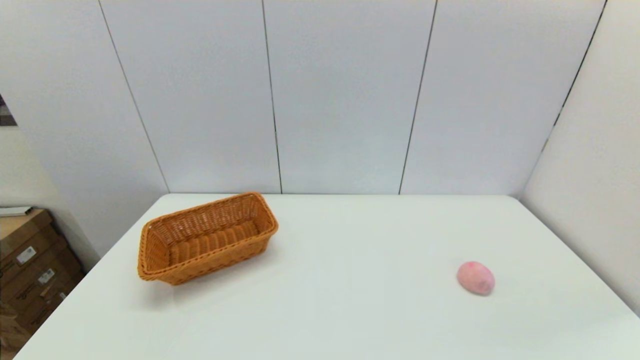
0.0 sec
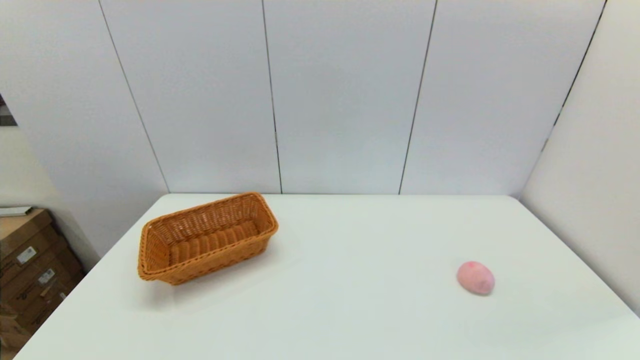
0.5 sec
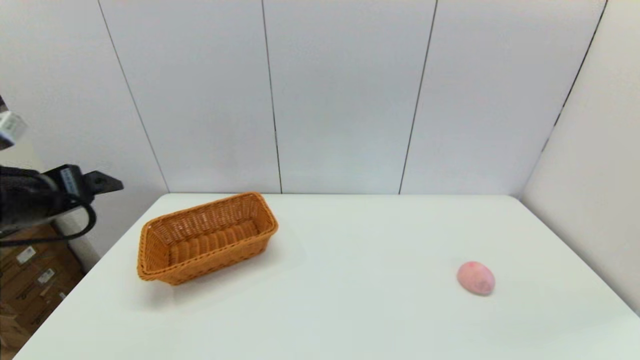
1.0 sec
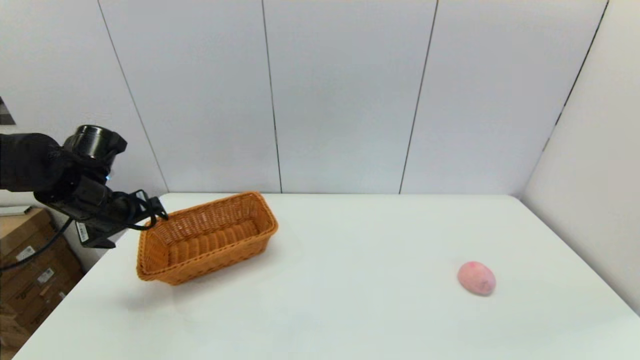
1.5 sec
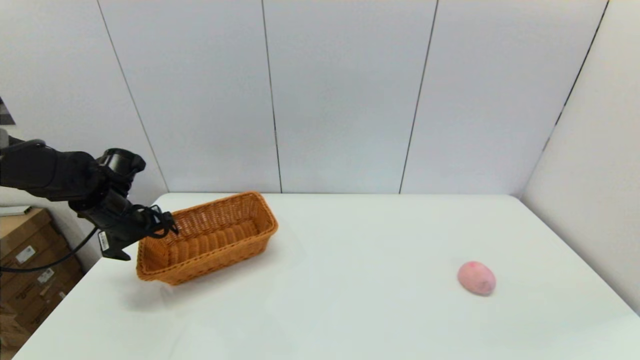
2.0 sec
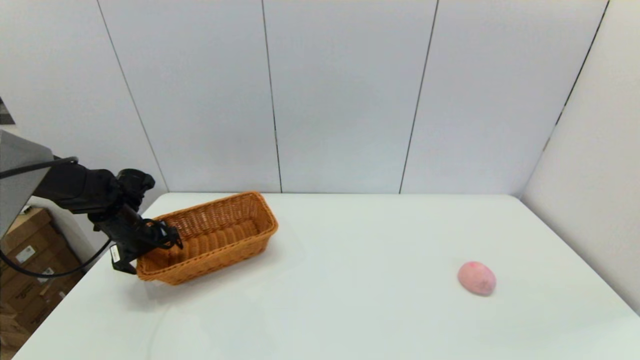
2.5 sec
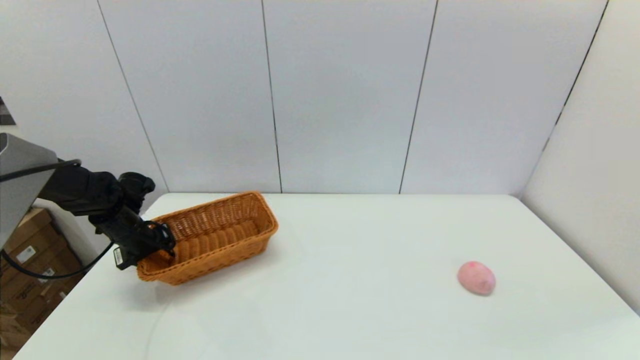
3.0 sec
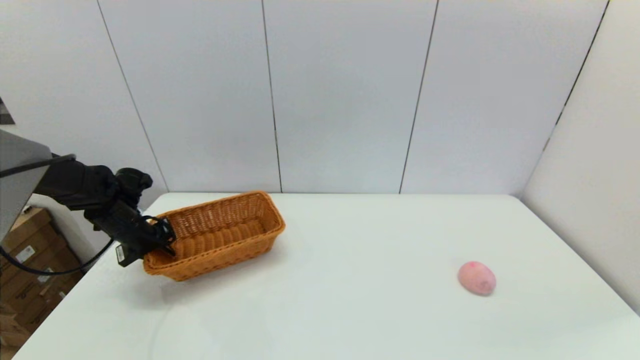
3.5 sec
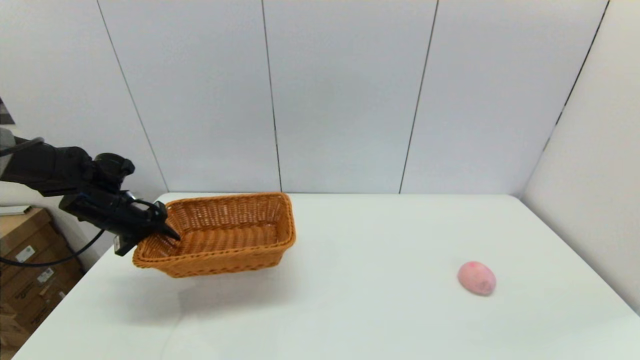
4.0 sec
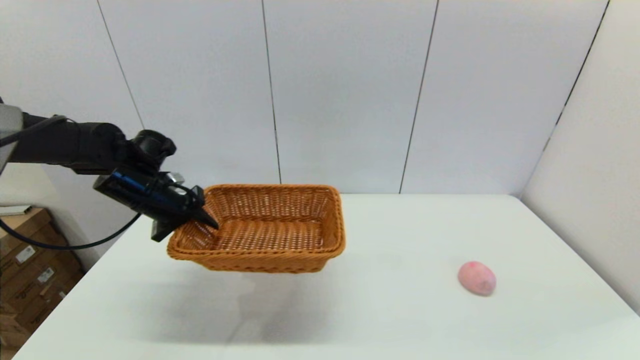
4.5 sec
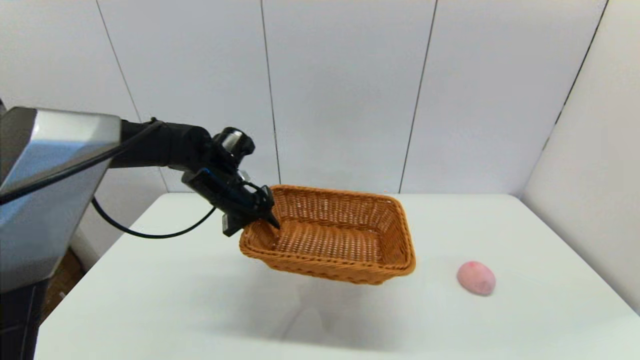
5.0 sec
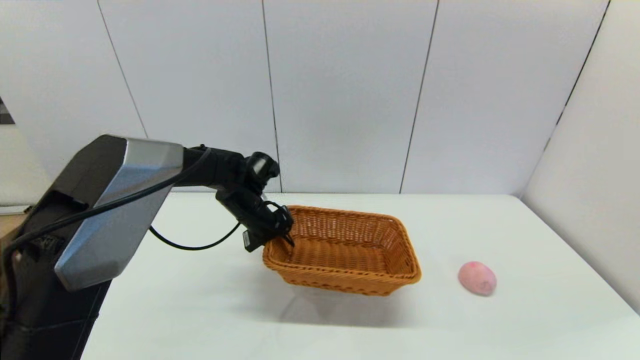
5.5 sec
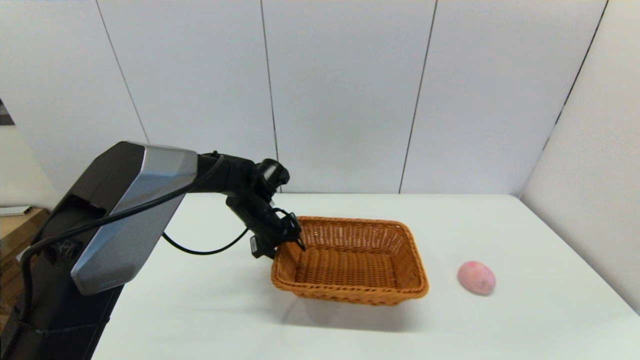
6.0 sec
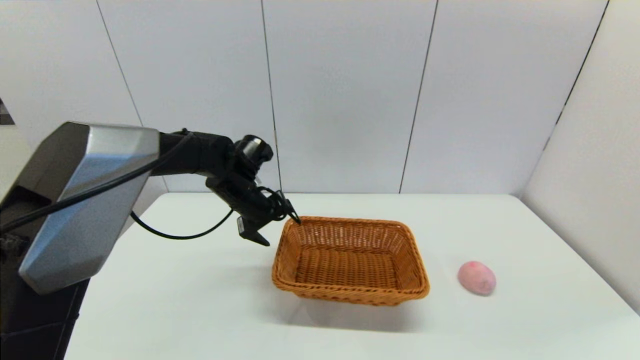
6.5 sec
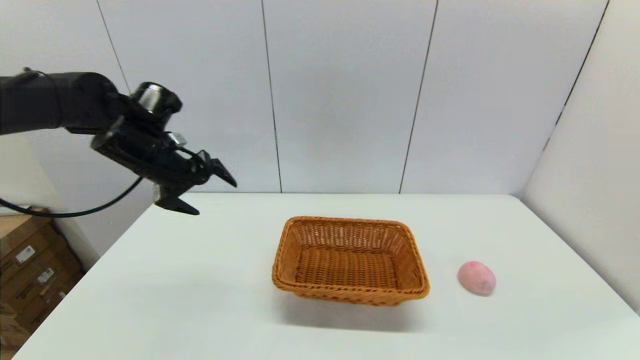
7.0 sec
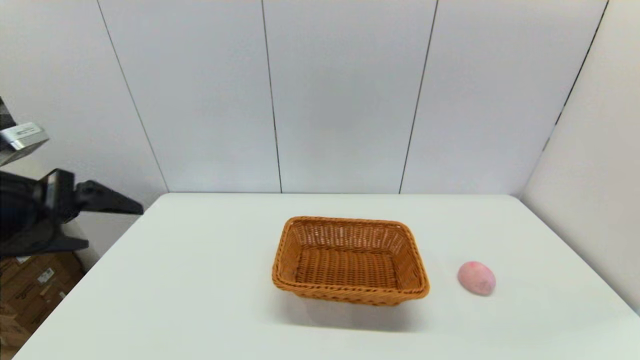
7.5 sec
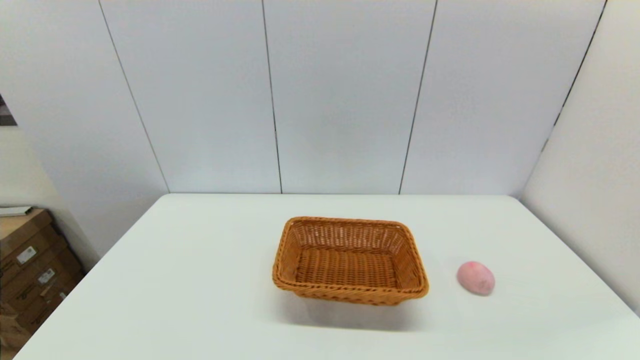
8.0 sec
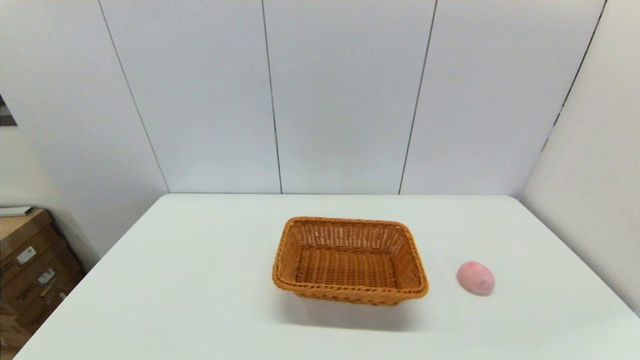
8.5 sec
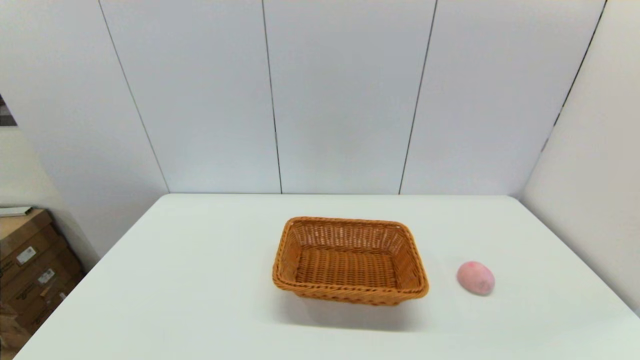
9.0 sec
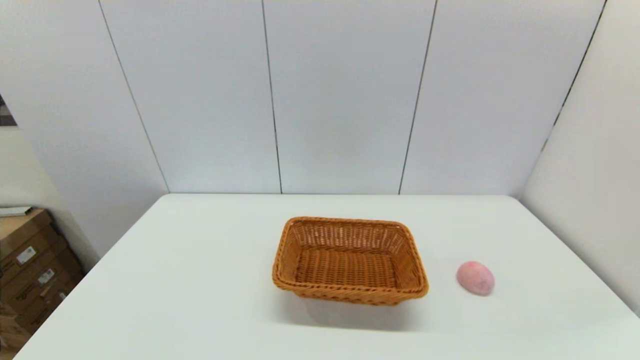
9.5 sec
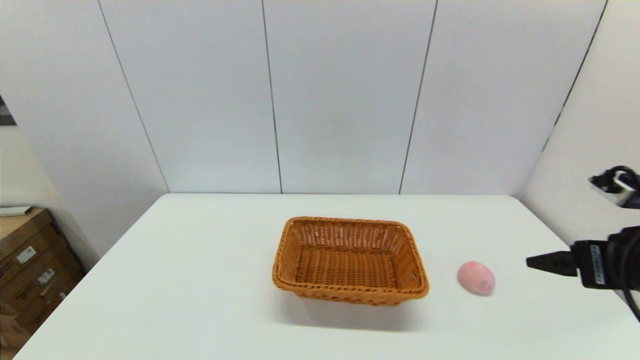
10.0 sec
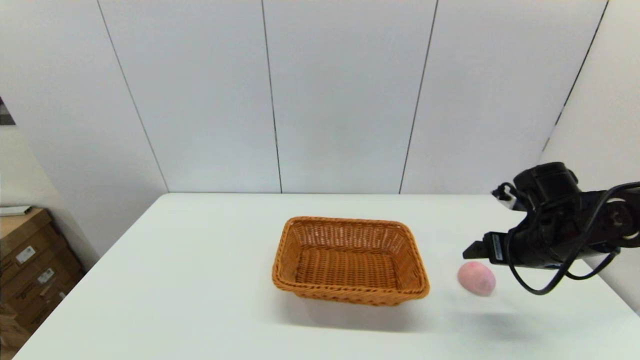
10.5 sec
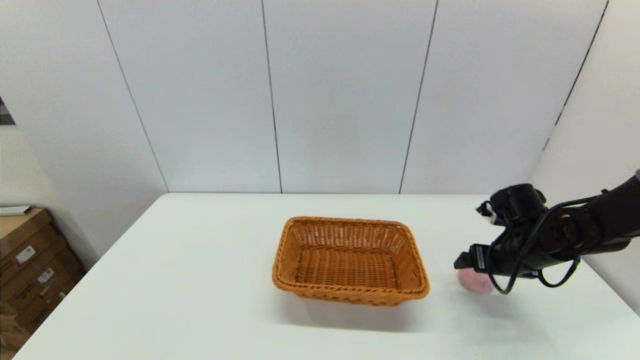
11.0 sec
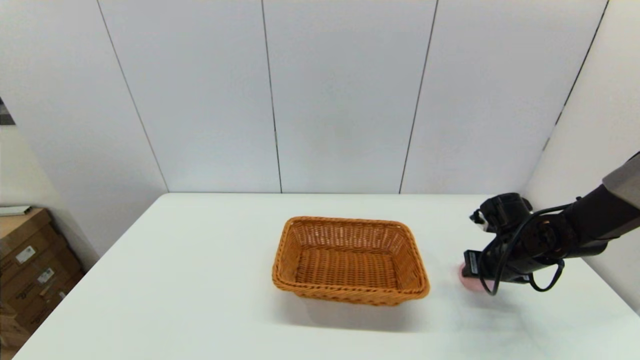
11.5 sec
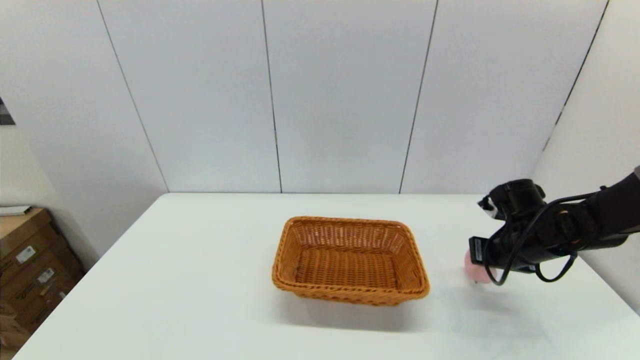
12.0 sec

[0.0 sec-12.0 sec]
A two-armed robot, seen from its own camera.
Step, 0.0 sec to 3.5 sec: Grasp the light basket with the left gripper.
Step, 4.0 sec to 6.0 sec: Place the light basket on the middle of the table with the left gripper.
Step, 6.5 sec to 11.5 sec: Grasp the peach with the right gripper.
0.0 sec to 2.0 sec: The left gripper travels forward by about 40 cm.
2.0 sec to 4.0 sec: The left gripper closes up.
4.0 sec to 6.0 sec: The left gripper goes about 25 cm to the right, and opens.
6.0 sec to 8.0 sec: The left gripper heads backward and to the left, covering roughly 40 cm, and opens up.
8.0 sec to 10.0 sec: The right gripper goes some 25 cm forward and upward.
10.0 sec to 12.0 sec: The right gripper moves forward and downward, about 20 cm, and closes.

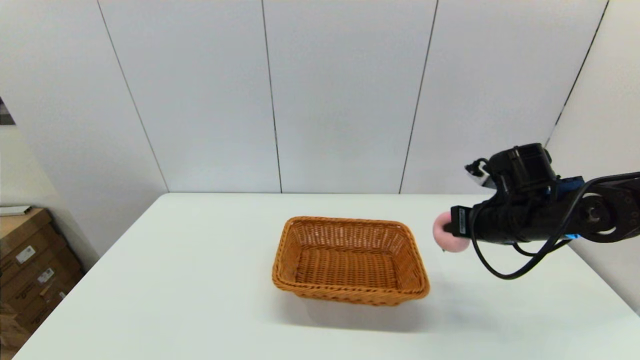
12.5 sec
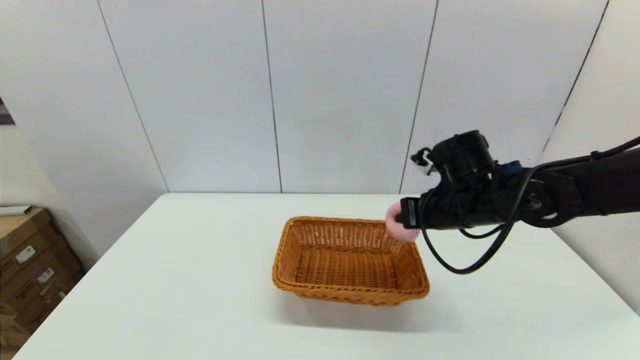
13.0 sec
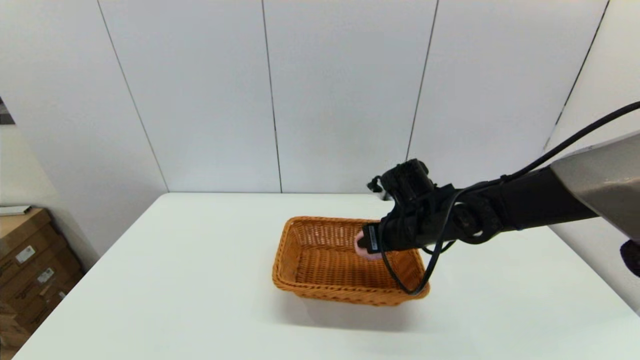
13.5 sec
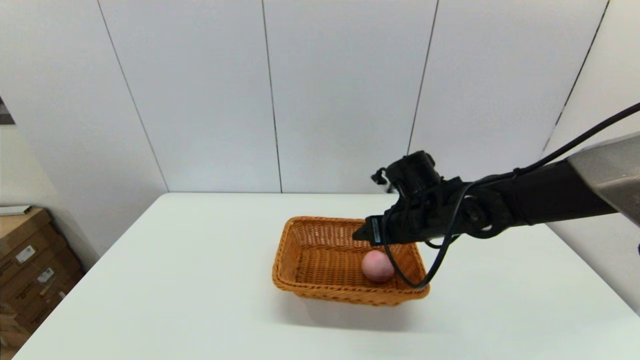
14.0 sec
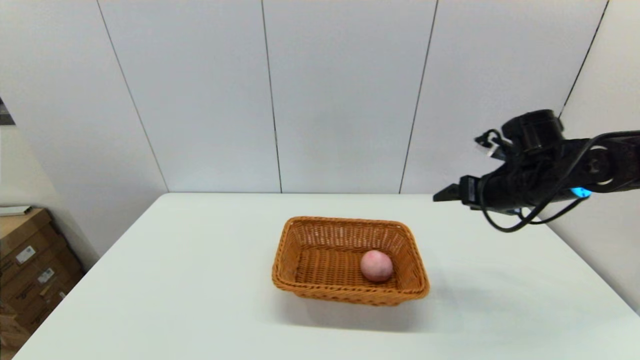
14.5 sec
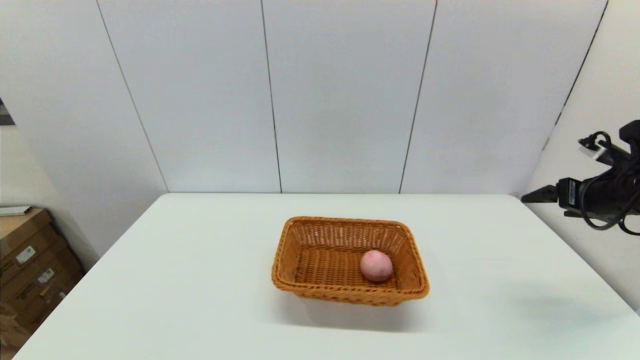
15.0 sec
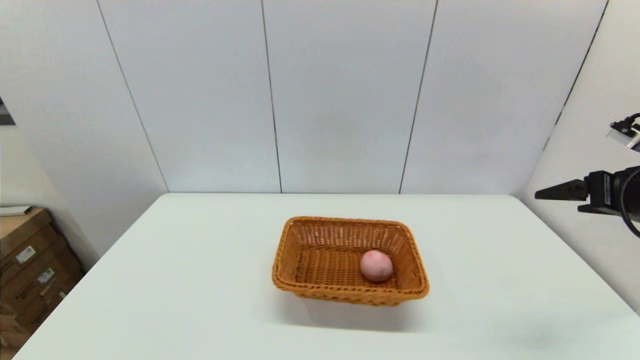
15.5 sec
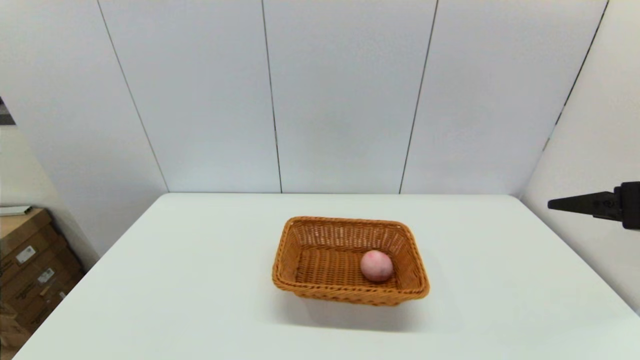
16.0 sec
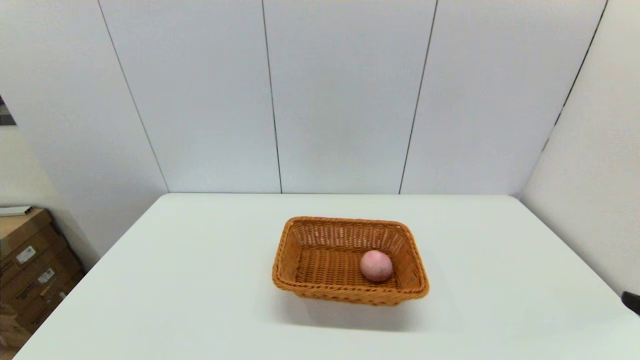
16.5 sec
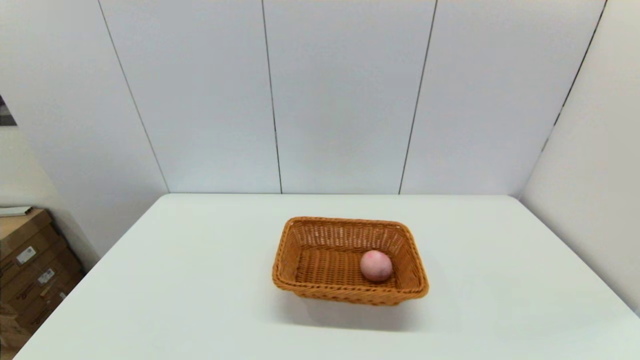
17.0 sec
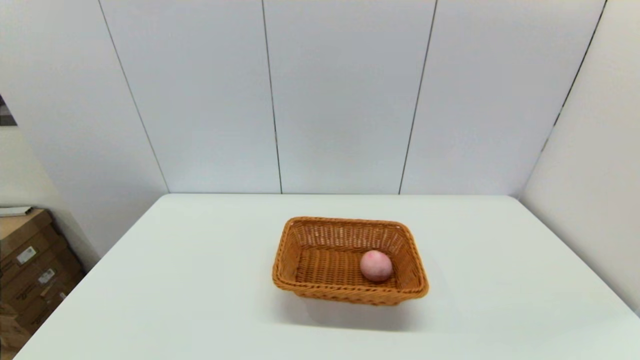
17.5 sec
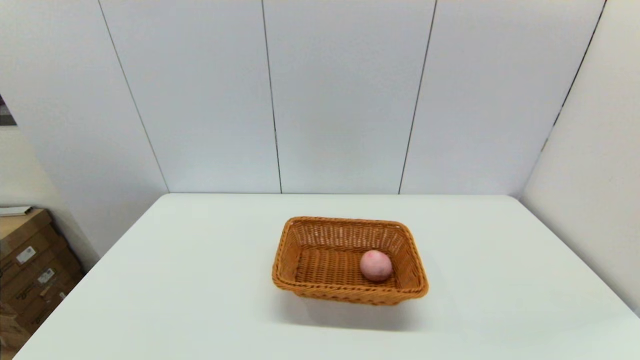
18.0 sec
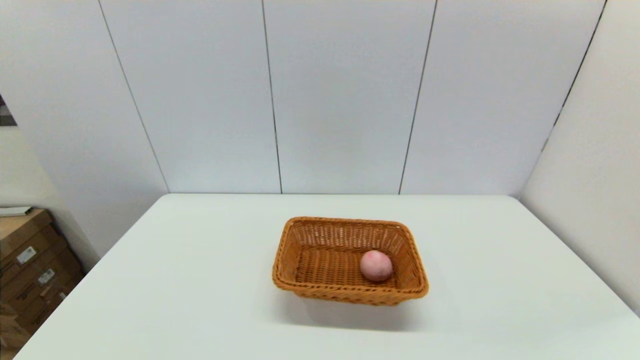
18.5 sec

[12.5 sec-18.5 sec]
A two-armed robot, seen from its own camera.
Step, 12.5 sec to 14.0 sec: Place the peach into the light basket with the right gripper.
12.5 sec to 14.5 sec: The right gripper goes to the left and returns, about 15 cm each way, and opens.
14.5 sec to 16.5 sec: The right gripper goes about 30 cm backward.

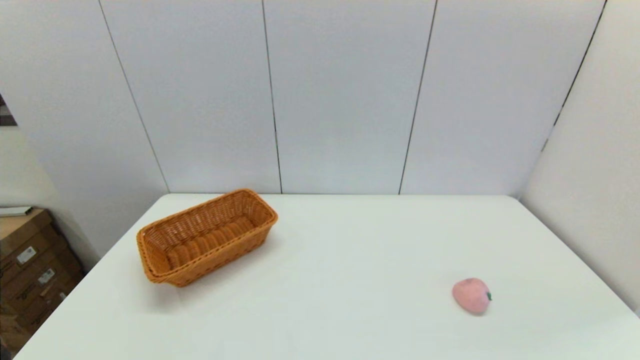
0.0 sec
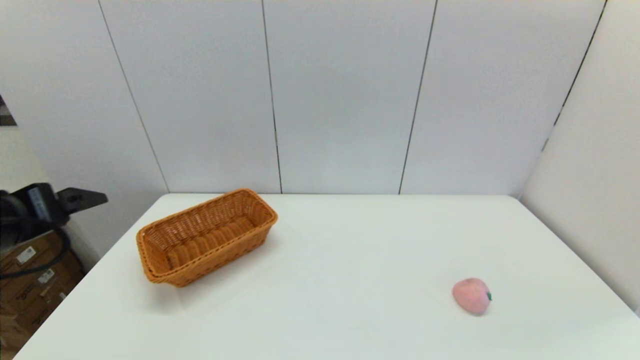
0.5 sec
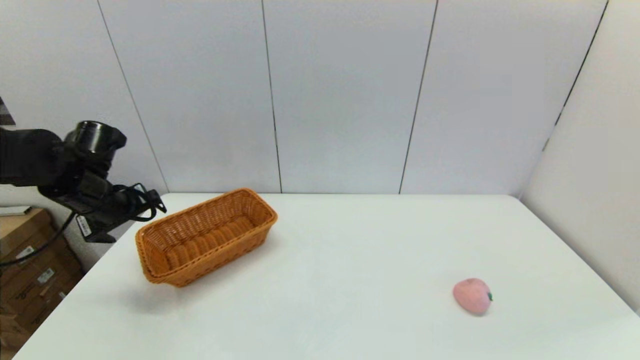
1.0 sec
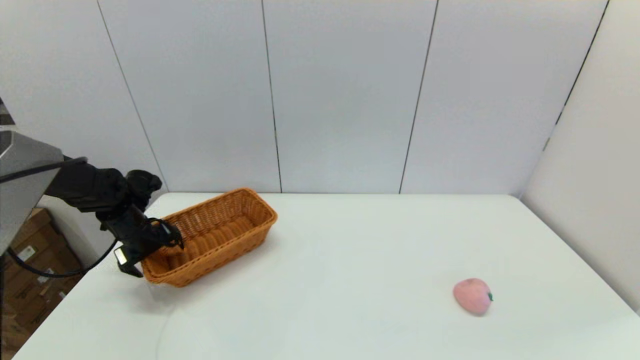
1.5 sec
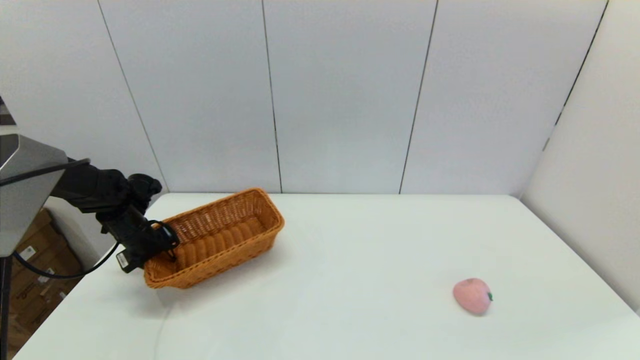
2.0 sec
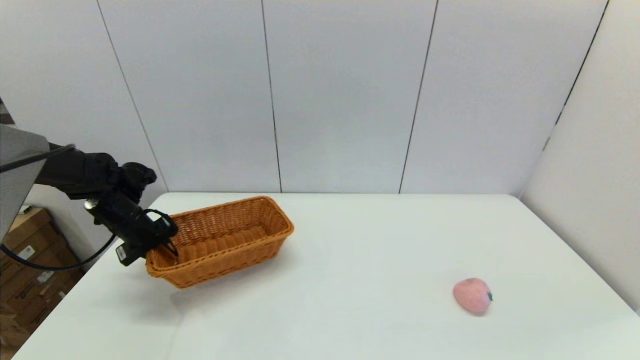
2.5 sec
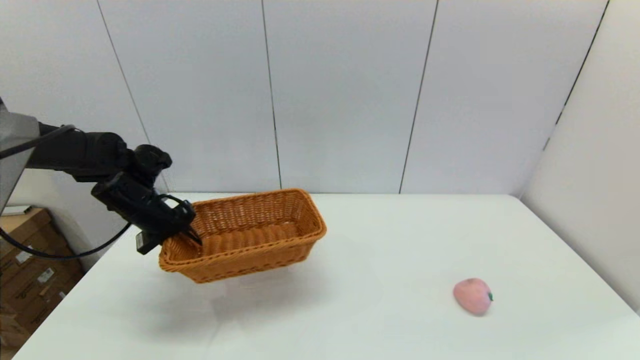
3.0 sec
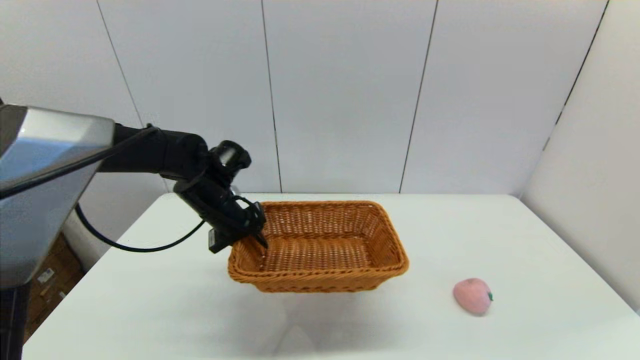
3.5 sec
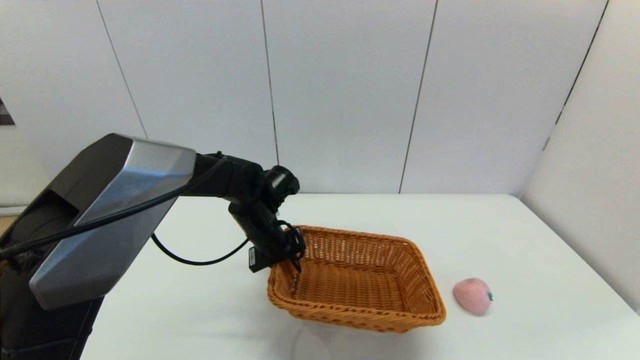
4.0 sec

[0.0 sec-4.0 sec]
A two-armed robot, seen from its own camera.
Step, 0.0 sec to 2.0 sec: Grasp the light basket with the left gripper.
0.0 sec to 2.0 sec: The left gripper is displaced forward by some 40 cm, and closes.
2.0 sec to 4.0 sec: The left gripper goes approximately 25 cm to the right.
